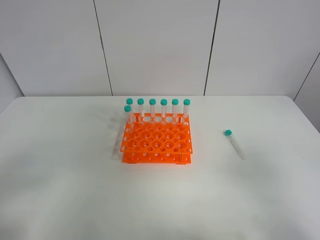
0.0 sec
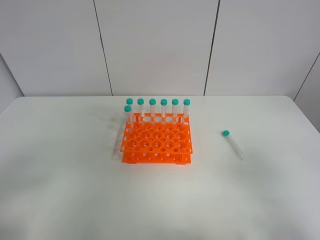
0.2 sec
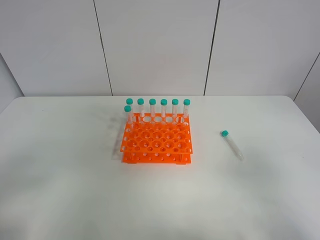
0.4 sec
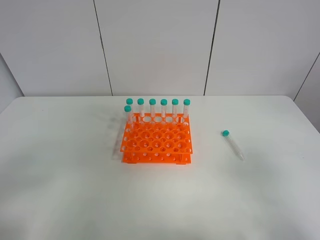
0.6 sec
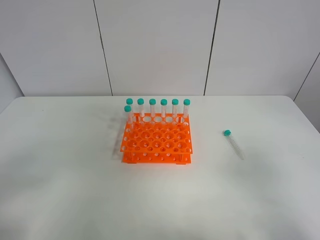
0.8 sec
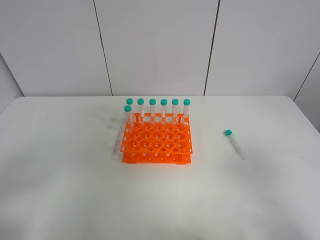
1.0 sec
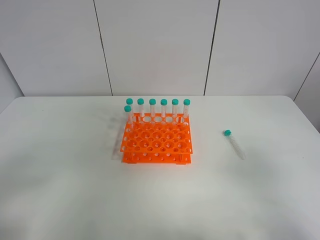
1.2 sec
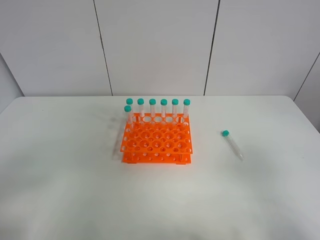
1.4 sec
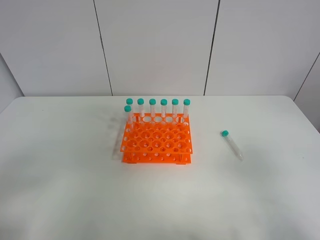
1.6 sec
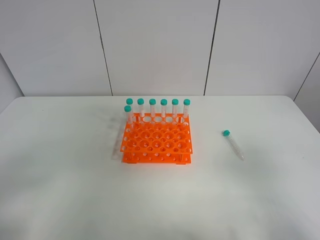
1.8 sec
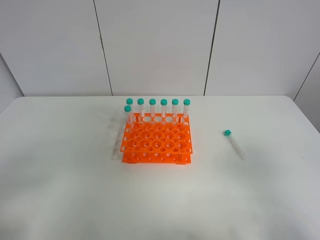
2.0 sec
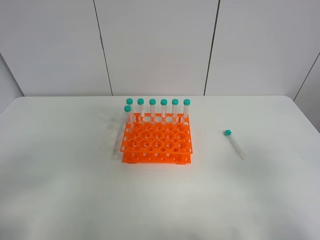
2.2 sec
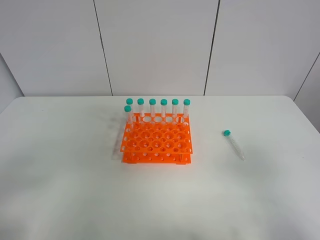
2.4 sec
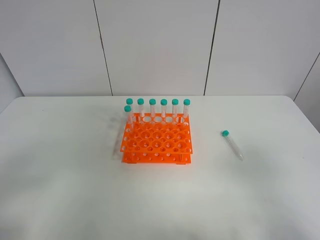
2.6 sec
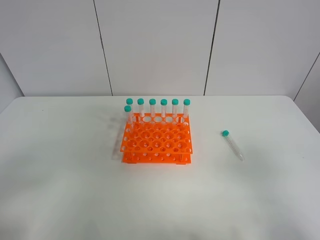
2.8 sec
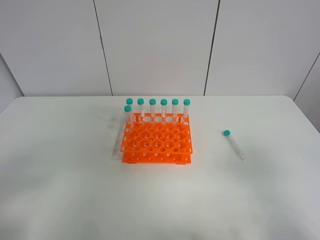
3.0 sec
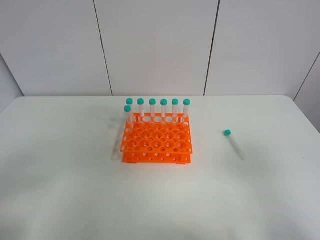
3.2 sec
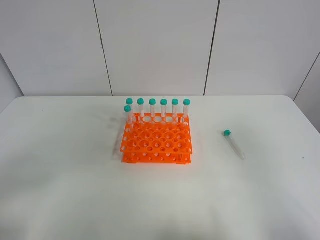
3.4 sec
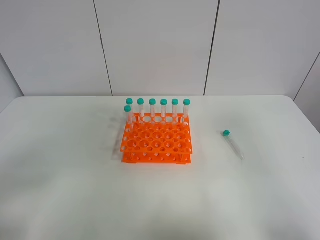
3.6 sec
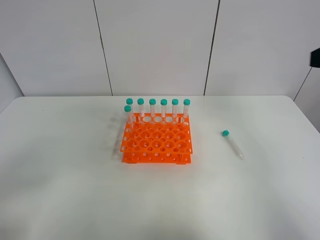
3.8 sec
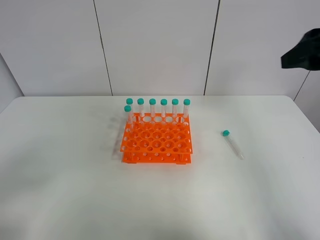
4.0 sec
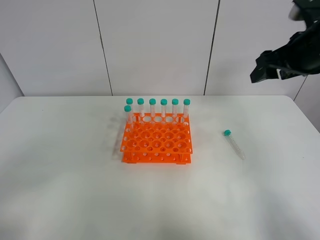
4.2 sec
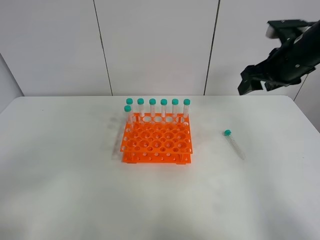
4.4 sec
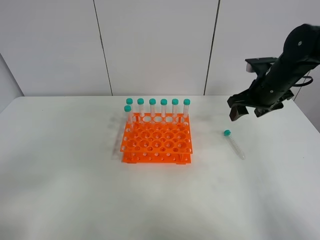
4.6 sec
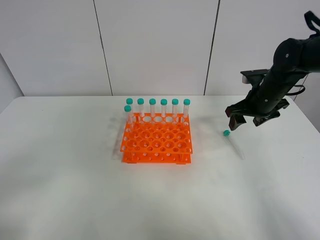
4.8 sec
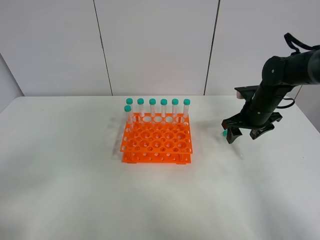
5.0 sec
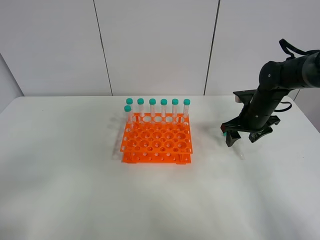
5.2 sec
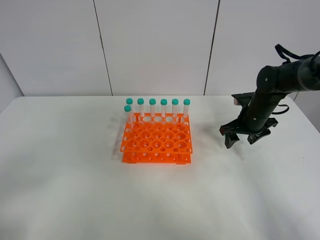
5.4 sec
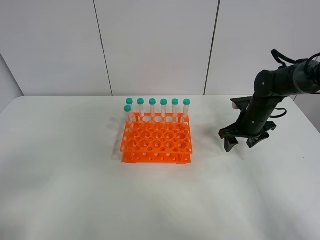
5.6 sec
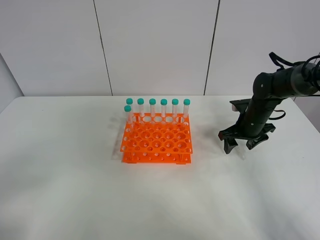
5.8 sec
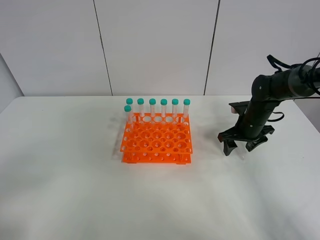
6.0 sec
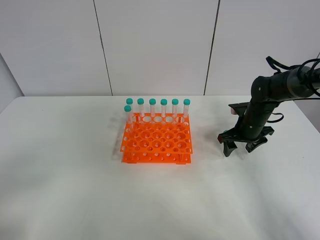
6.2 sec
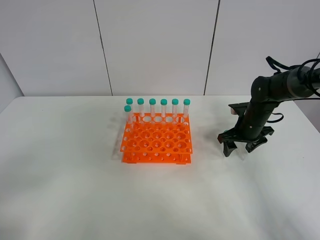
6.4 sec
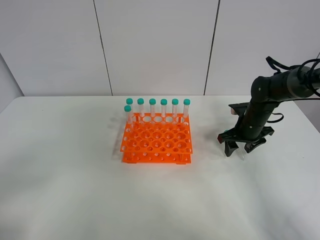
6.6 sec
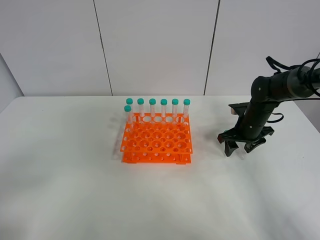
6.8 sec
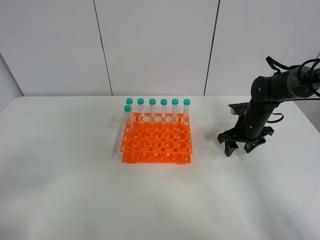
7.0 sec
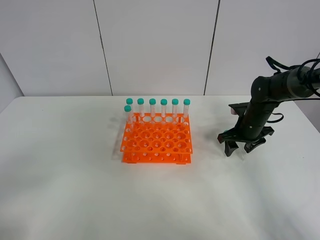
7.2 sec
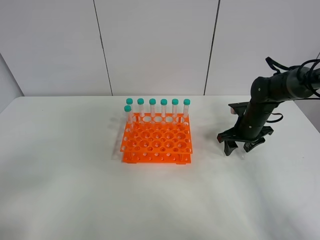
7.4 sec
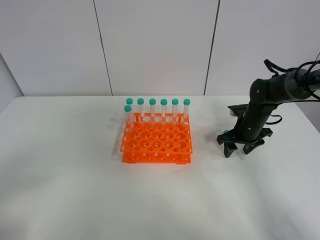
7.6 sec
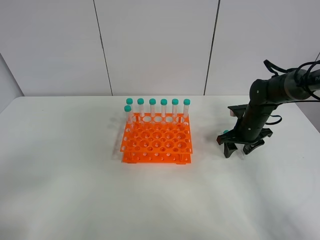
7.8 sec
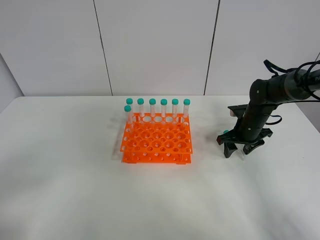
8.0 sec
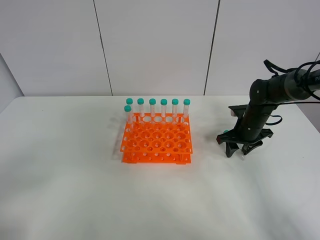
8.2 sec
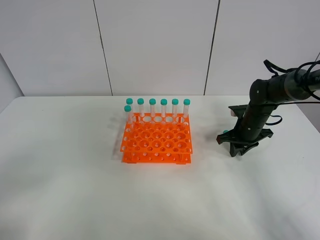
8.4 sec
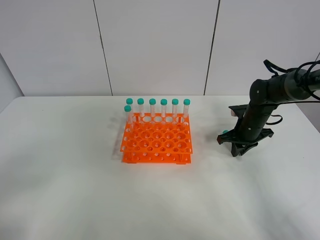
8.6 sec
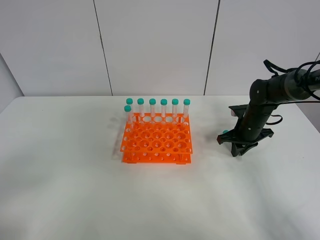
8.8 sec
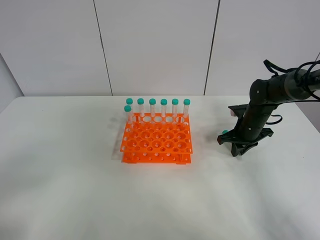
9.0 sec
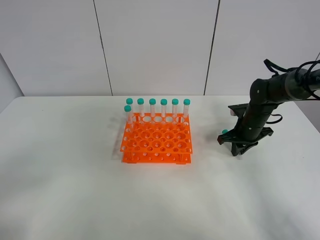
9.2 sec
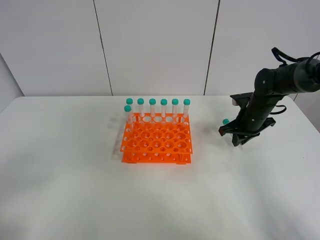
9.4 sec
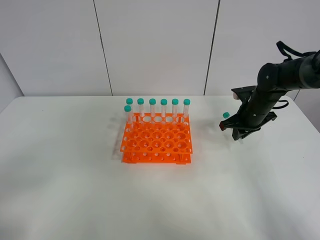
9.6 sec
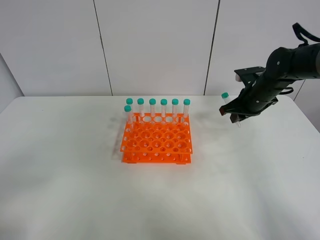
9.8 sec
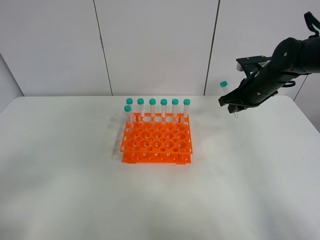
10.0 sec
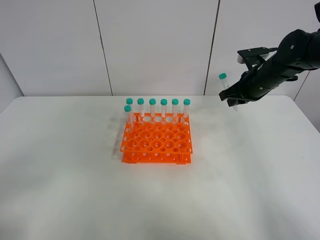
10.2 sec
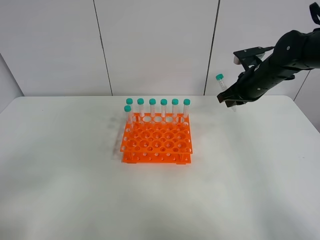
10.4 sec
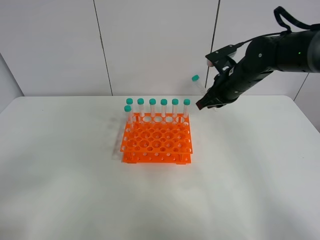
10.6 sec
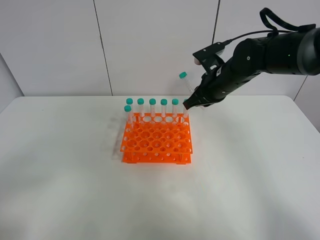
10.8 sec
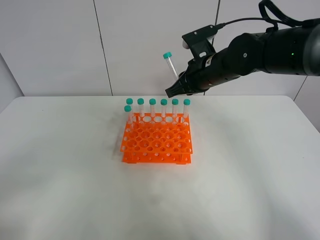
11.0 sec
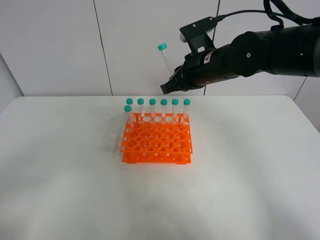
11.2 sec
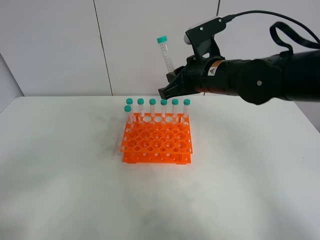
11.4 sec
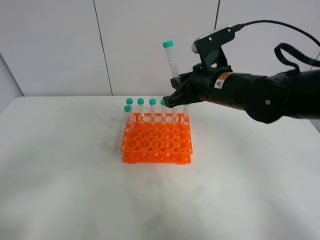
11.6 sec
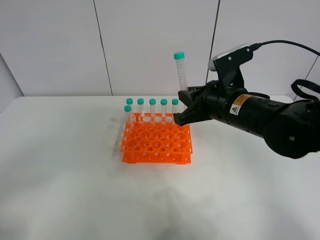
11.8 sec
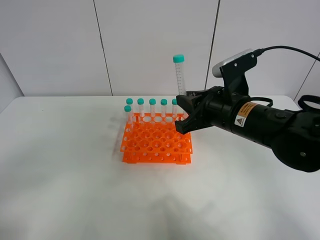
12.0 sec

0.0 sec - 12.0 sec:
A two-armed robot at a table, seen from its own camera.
Task of the whole recording: Put the test tube on the table back onto the test tube rack.
Step, 0.0 sec - 8.4 sec: Pick up the test tube with the right gripper.
0.0 sec - 1.6 sec: Both grippers stay put.
1.6 sec - 3.0 sec: Both grippers stay about where they are.
3.0 sec - 4.4 sec: The right gripper moves forward, some 35 cm.
4.4 sec - 6.0 sec: The right gripper goes some 20 cm downward.
6.0 sec - 7.6 sec: Both grippers stay put.
7.6 sec - 9.0 sec: The right gripper closes its fingers.
9.0 sec - 10.4 sec: The right gripper is displaced upward by about 15 cm.
10.4 sec - 12.0 sec: The right gripper is displaced backward and to the left by some 20 cm.

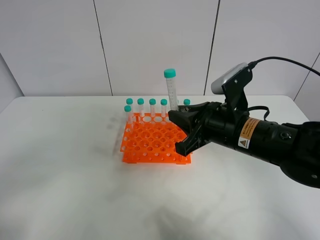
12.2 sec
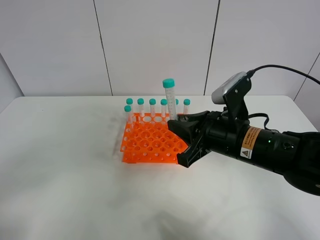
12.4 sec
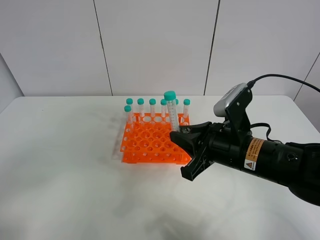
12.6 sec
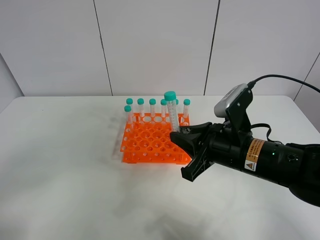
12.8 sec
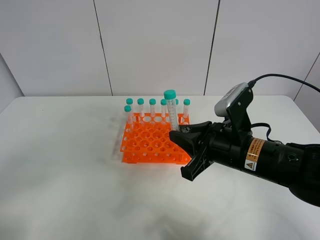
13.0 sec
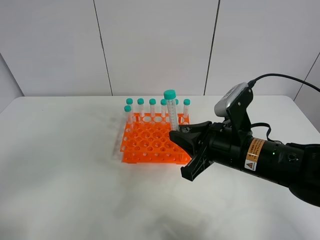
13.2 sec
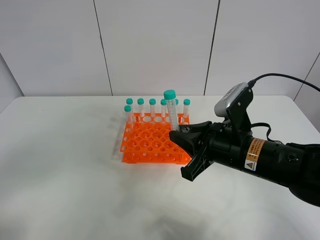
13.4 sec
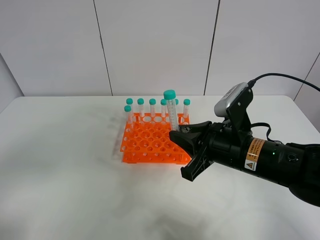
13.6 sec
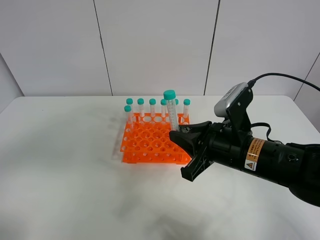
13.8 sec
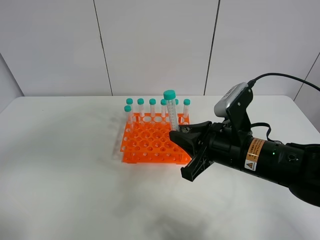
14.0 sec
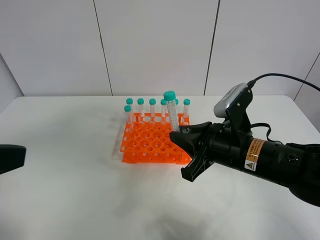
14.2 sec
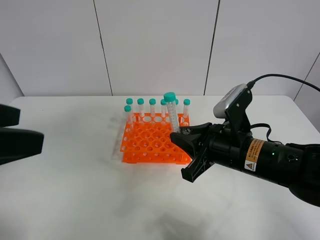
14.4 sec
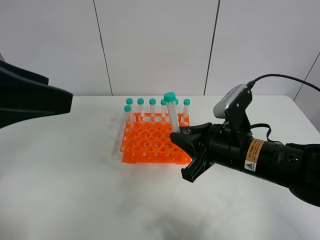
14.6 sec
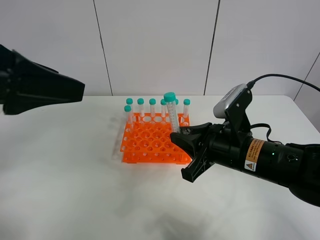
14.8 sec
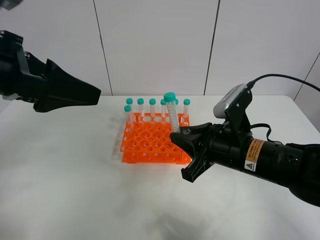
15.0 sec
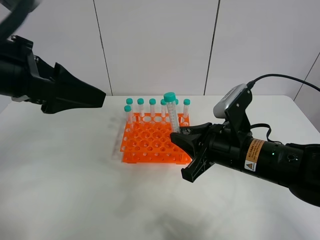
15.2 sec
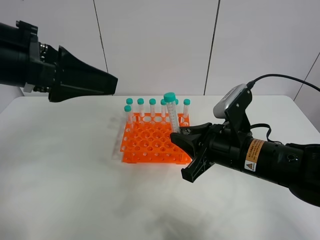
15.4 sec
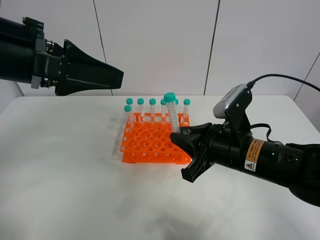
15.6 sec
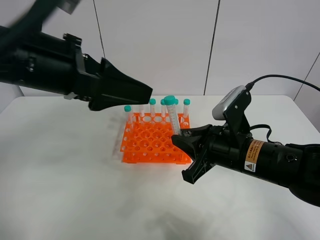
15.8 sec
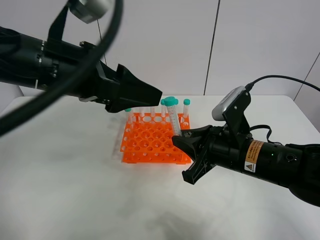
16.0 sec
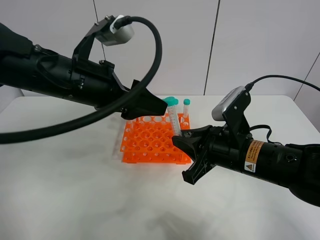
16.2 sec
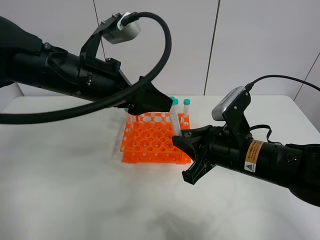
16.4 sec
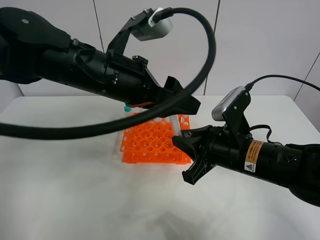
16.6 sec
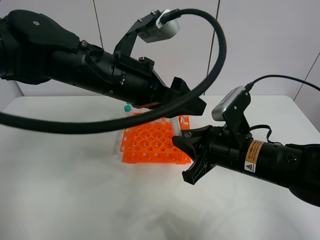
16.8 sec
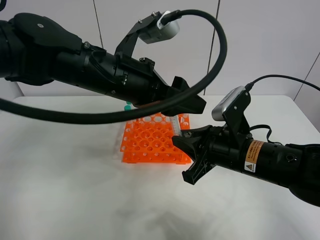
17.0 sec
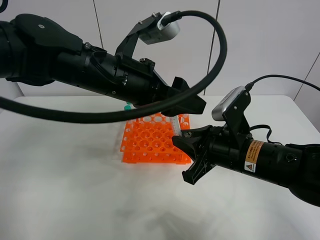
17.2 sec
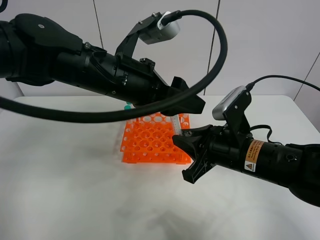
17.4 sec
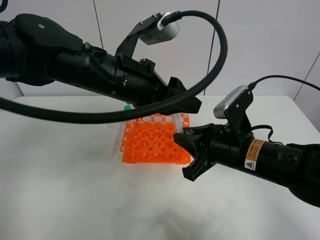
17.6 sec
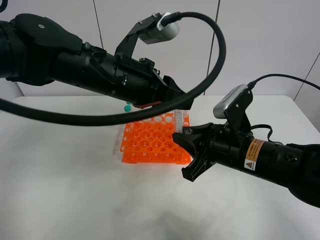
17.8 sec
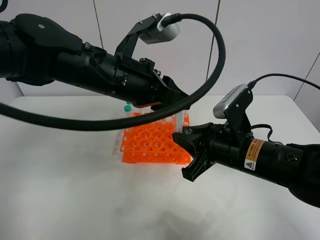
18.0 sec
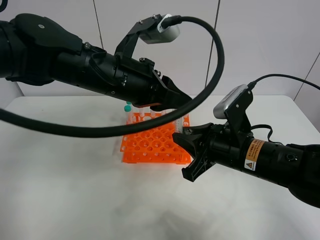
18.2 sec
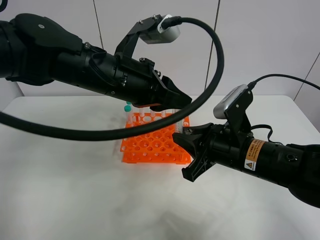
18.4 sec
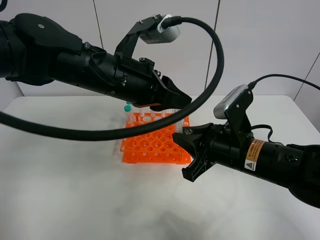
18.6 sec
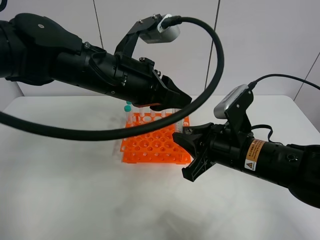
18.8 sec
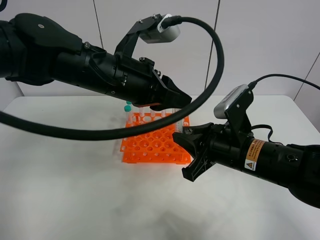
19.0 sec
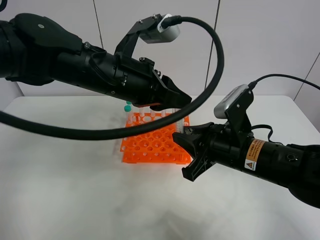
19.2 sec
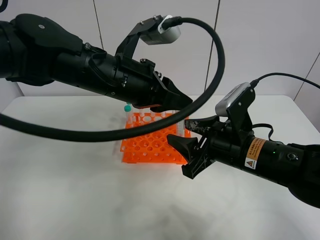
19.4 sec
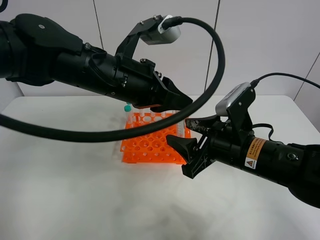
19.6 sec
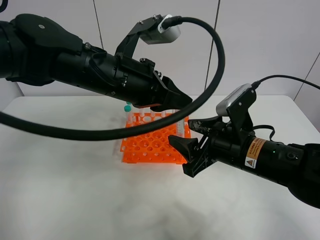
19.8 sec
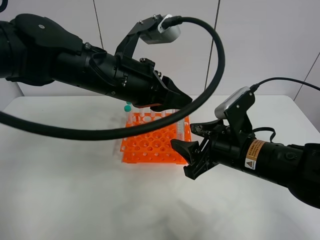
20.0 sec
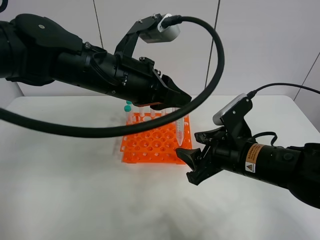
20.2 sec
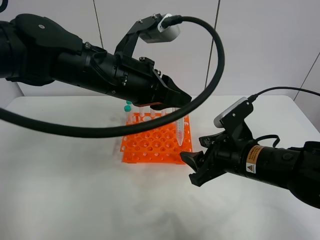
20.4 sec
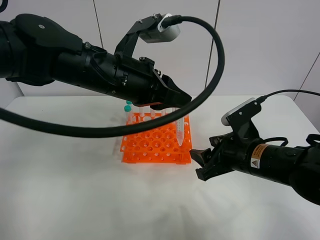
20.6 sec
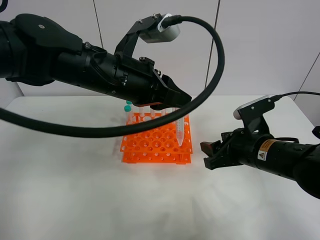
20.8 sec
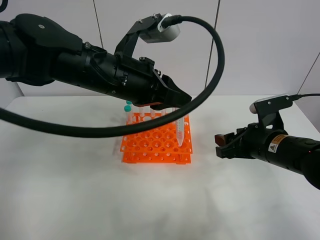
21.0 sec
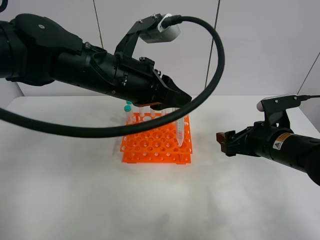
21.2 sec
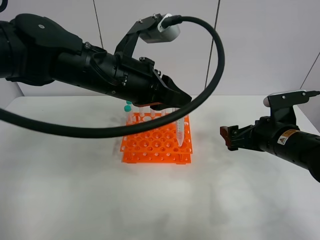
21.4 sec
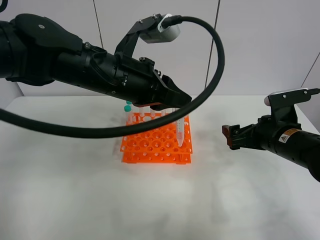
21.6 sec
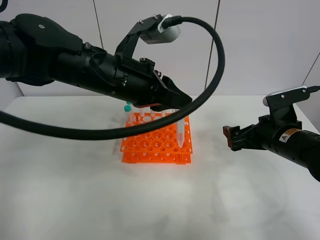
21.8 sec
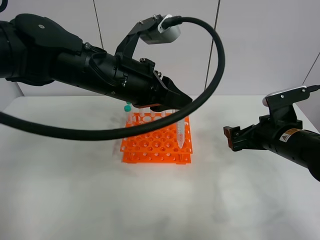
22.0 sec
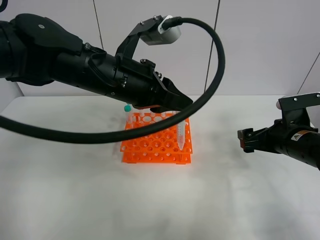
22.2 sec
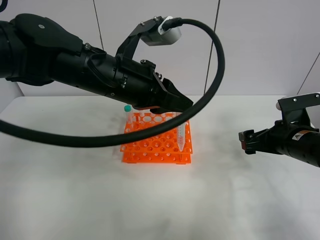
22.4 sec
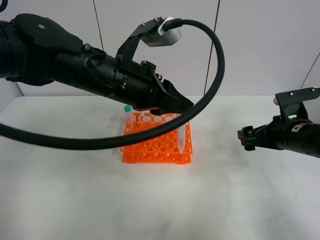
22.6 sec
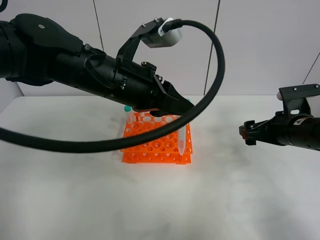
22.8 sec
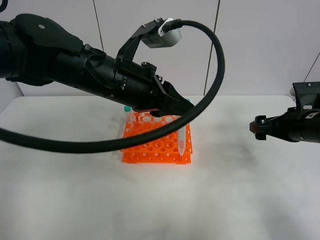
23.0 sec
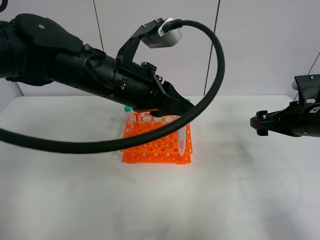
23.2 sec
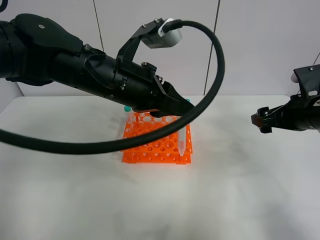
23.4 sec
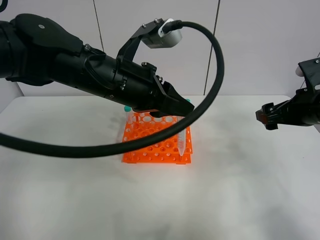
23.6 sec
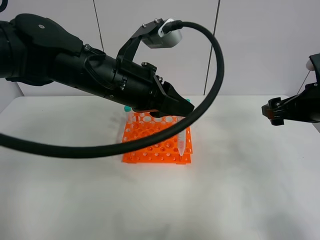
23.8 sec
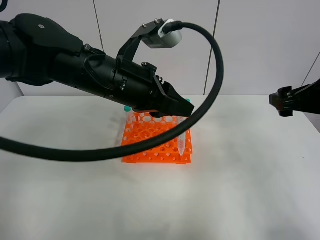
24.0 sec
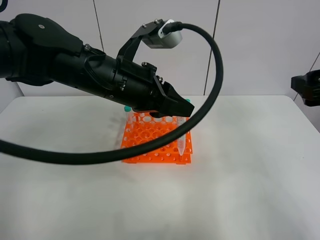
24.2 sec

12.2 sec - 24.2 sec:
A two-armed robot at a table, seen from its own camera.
Task of the whole recording: Put the test tube on the table back onto the test tube rack.
Step, 12.2 sec - 19.4 sec: Move the test tube from the right gripper to the left gripper.
12.2 sec - 13.8 sec: The left gripper moves upward, about 5 cm.
13.8 sec - 15.2 sec: The left gripper shifts roughly 20 cm forward and to the right.
15.2 sec - 16.6 sec: The left gripper moves to the right, forward and downward, some 15 cm.
16.6 sec - 18.2 sec: The left gripper closes up.
18.2 sec - 19.8 sec: The right gripper opens its fingers.
19.8 sec - 21.2 sec: The right gripper travels to the right by some 10 cm.
21.2 sec - 22.6 sec: There are only small adjustments of the grippers.
22.6 sec - 24.2 sec: The right gripper is displaced upward and backward by some 15 cm.
